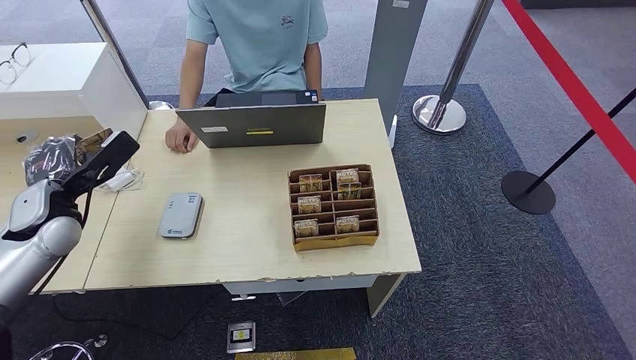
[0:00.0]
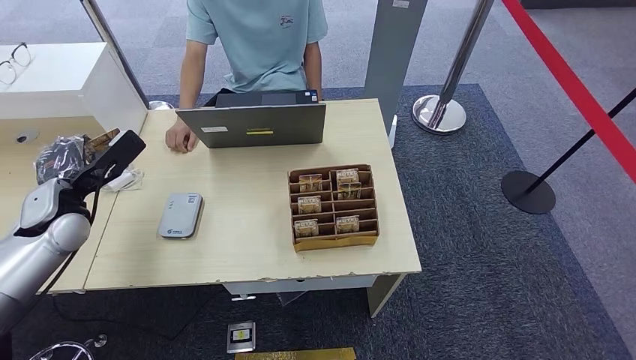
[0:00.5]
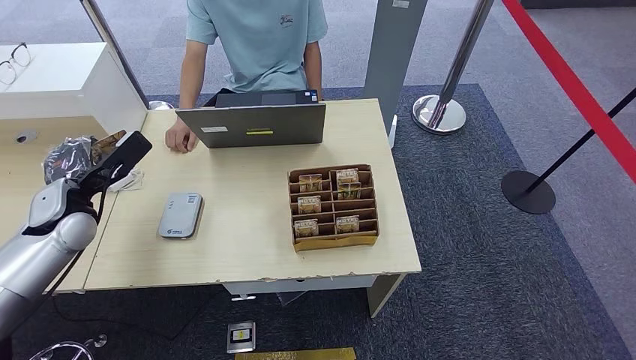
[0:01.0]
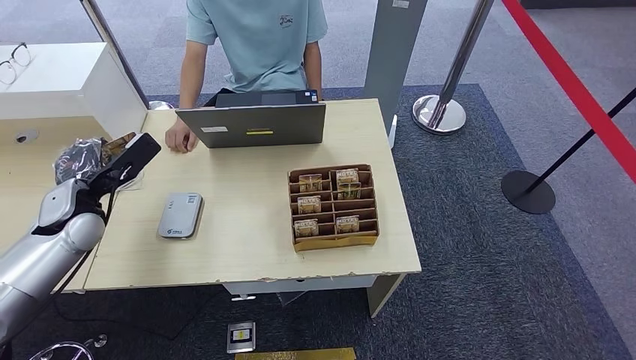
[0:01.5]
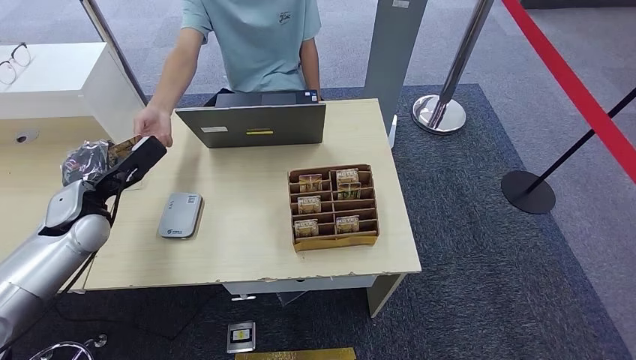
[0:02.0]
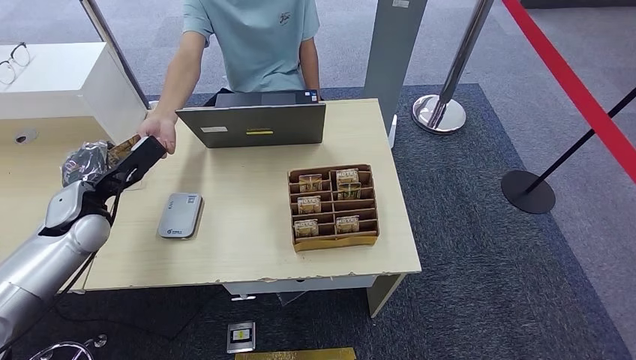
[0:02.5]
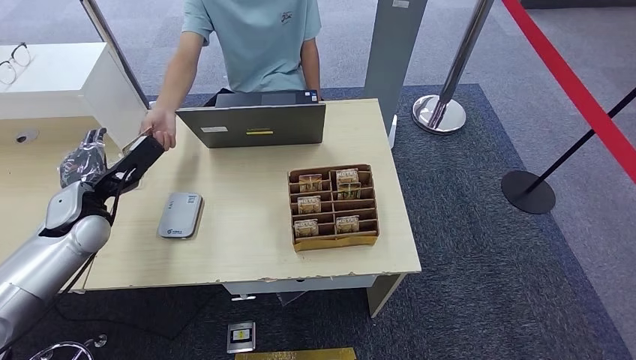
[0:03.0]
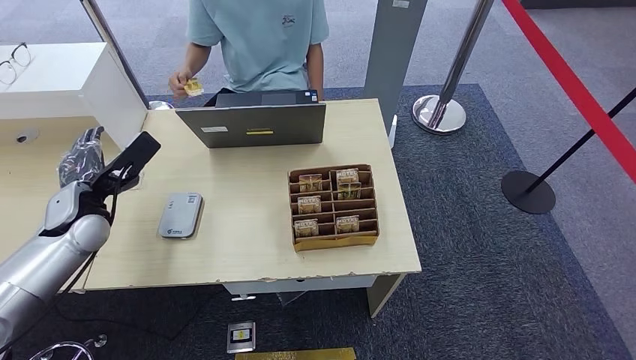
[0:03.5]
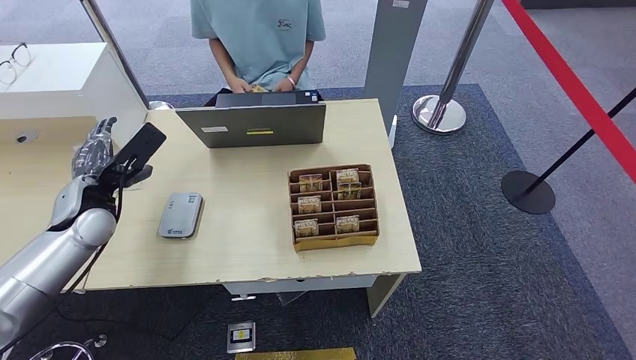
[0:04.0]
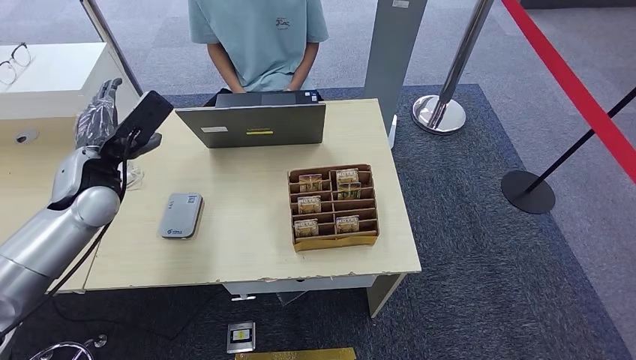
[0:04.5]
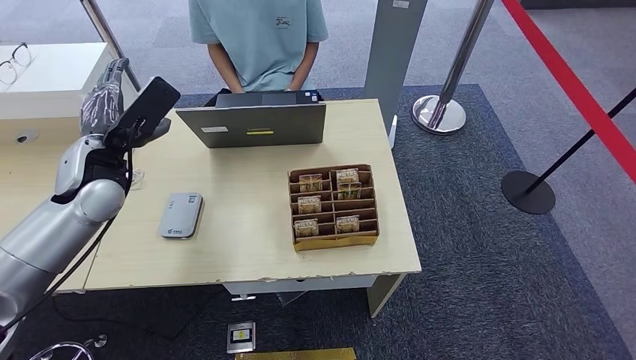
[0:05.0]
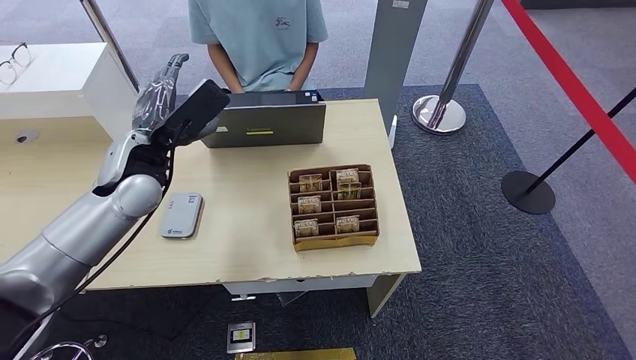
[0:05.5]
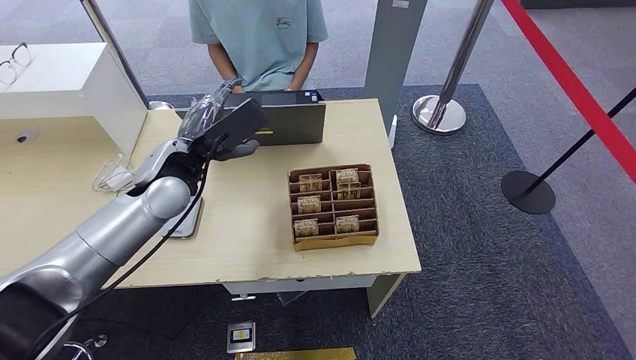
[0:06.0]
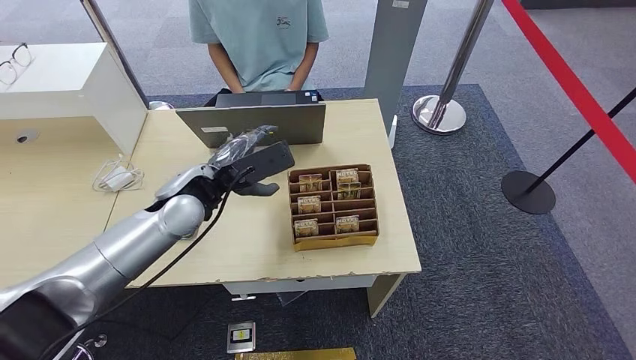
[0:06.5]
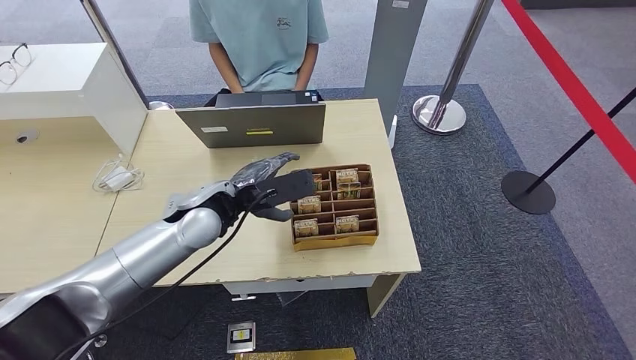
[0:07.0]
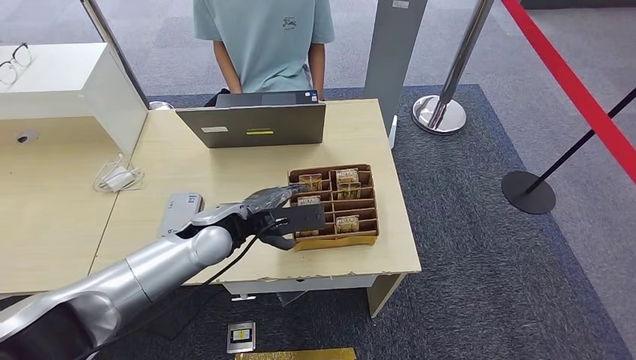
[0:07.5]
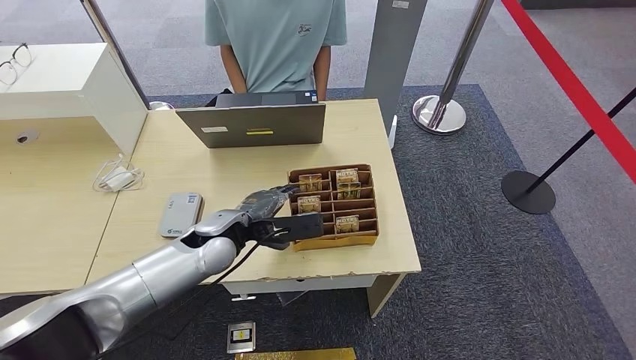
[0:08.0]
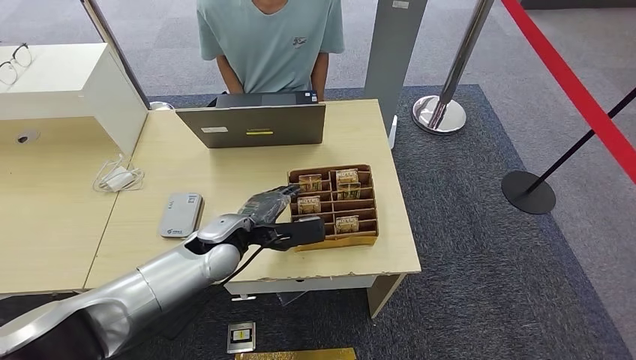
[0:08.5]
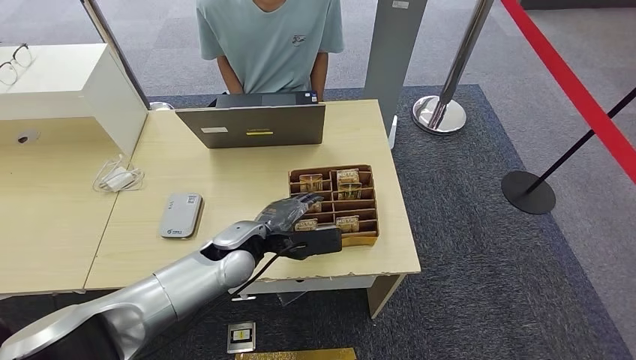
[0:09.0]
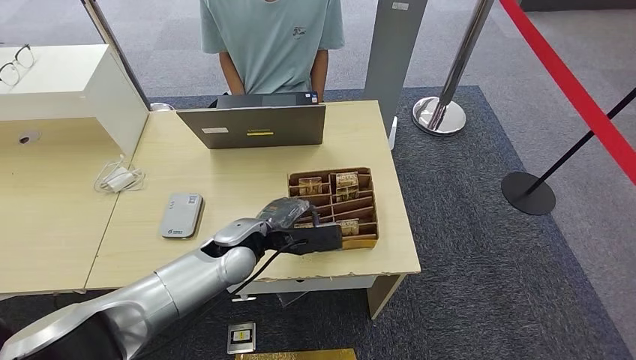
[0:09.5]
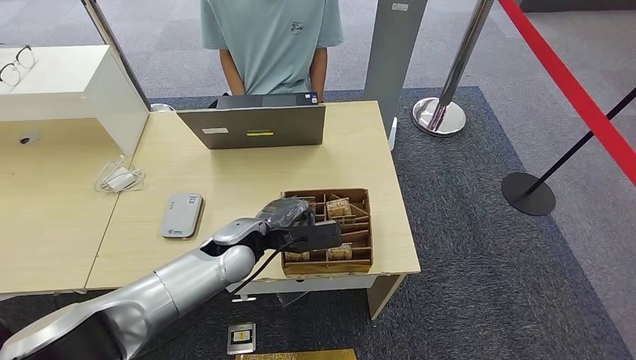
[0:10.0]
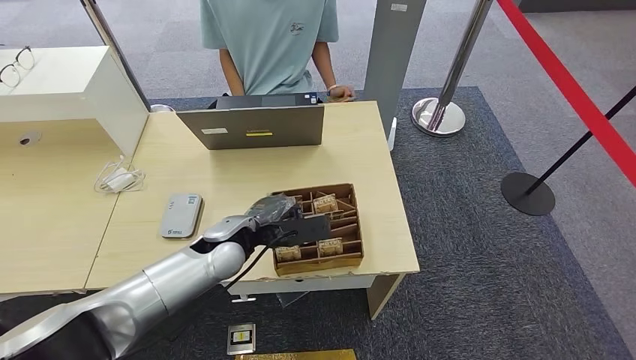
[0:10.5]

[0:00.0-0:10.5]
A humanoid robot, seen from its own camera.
Step, 0:00.0 to 0:03.5: Hand the ID card to the person.
0:00.0 to 0:04.0: There are only small adjustments of the hands.
0:04.0 to 0:06.5: The left hand heads to the right, covering some 20 cm.
0:06.5 to 0:08.5: The left hand travels downward by about 10 cm.
0:08.5 to 0:10.5: There are only small adjustments of the hands.

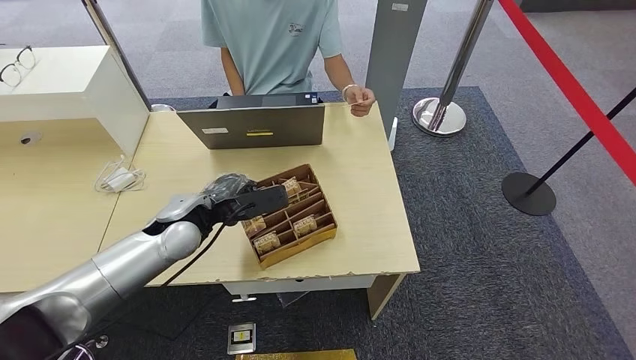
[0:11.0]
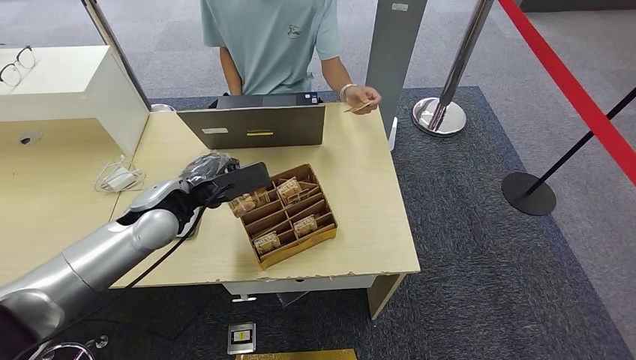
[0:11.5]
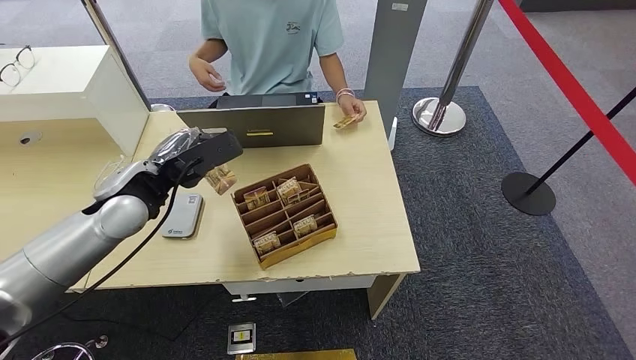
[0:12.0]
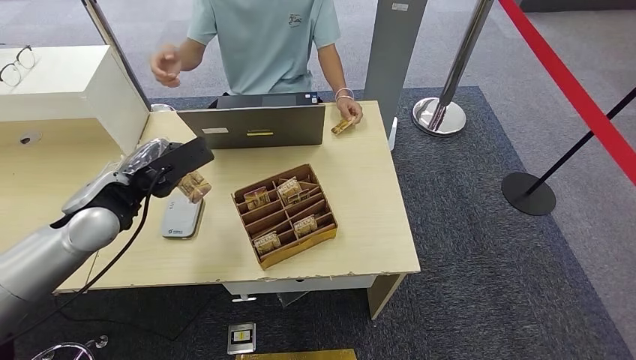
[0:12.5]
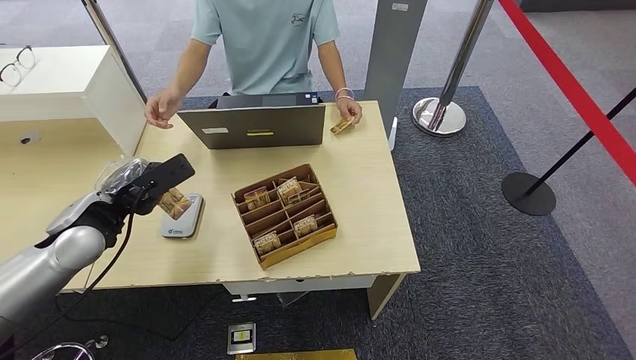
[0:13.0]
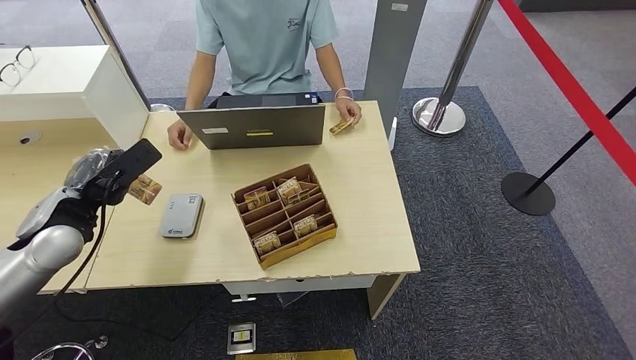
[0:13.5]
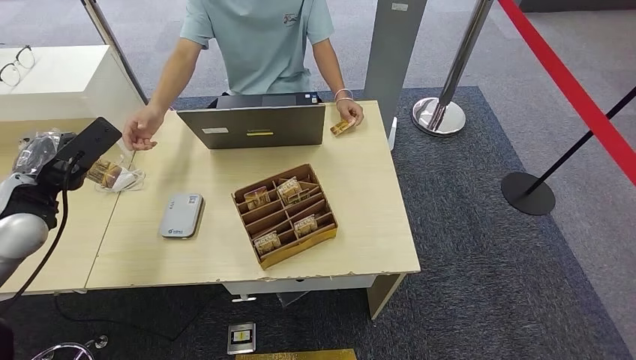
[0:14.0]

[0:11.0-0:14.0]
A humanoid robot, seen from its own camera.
Step, 0:12.5 to 0:14.0: Hand the room key to the person.
0:11.0 to 0:12.5: The left hand travels to the left and upward by some 15 cm.
0:12.5 to 0:14.0: The left hand heads to the left, covering approximately 10 cm.
